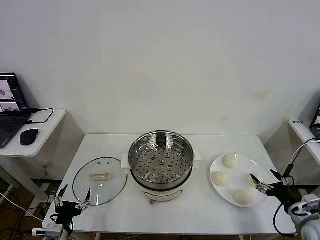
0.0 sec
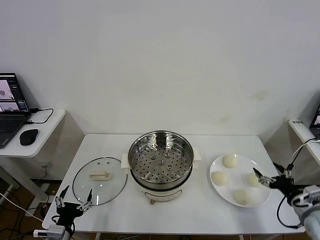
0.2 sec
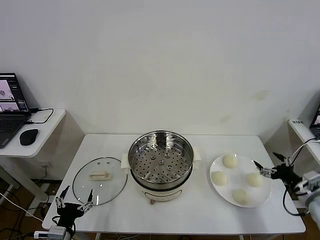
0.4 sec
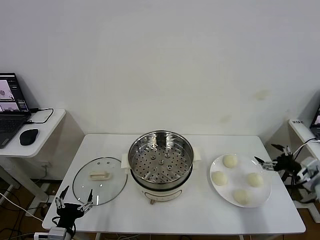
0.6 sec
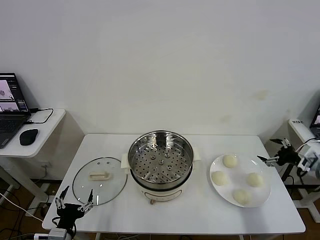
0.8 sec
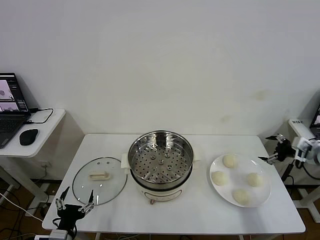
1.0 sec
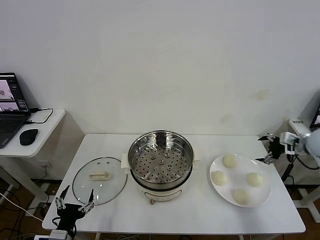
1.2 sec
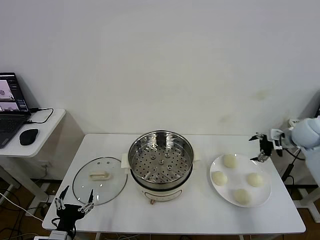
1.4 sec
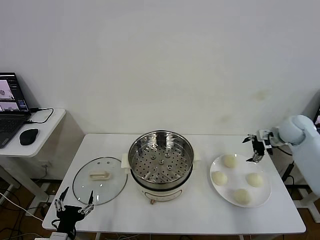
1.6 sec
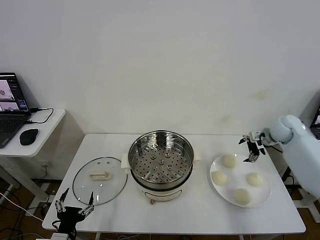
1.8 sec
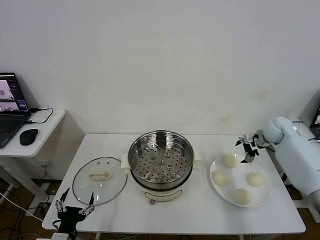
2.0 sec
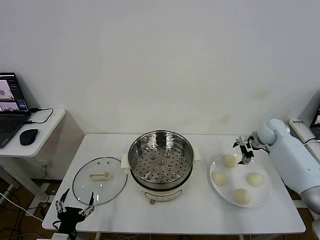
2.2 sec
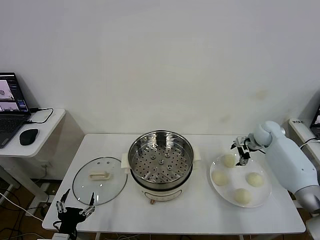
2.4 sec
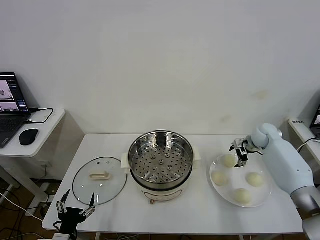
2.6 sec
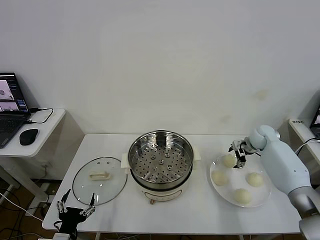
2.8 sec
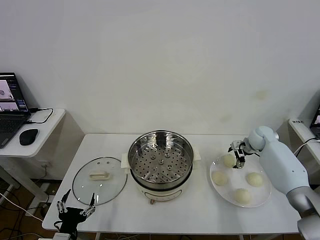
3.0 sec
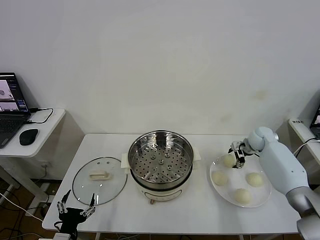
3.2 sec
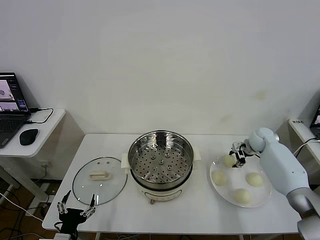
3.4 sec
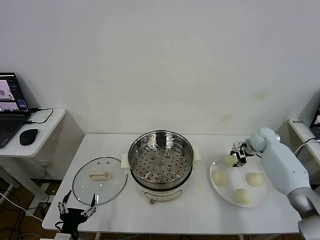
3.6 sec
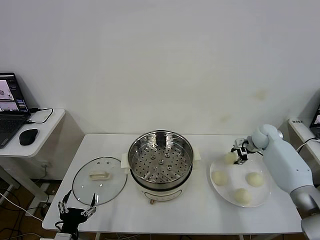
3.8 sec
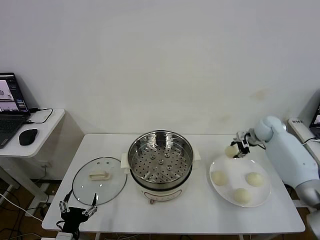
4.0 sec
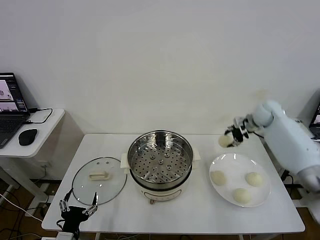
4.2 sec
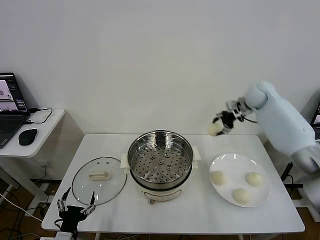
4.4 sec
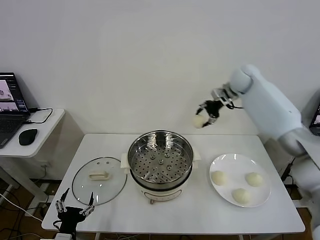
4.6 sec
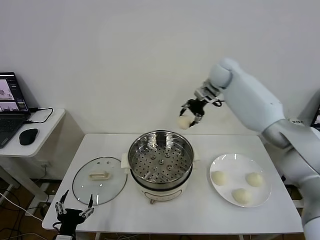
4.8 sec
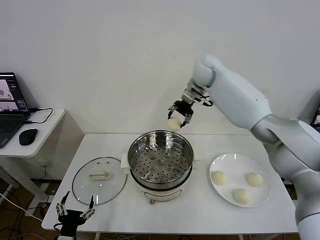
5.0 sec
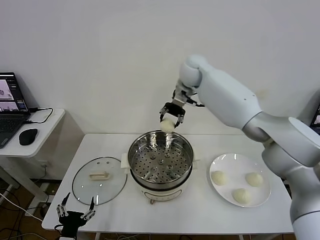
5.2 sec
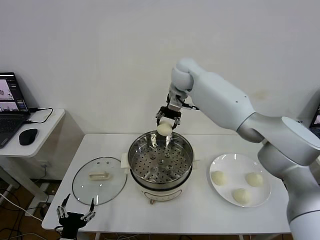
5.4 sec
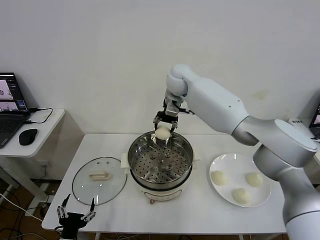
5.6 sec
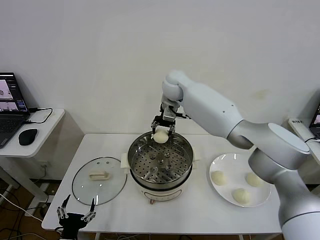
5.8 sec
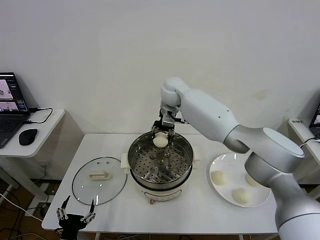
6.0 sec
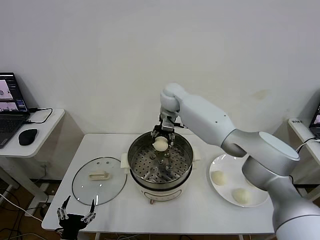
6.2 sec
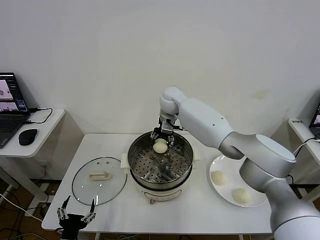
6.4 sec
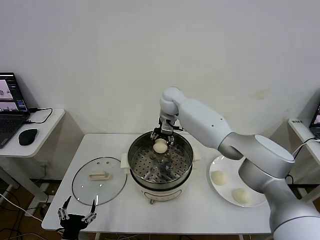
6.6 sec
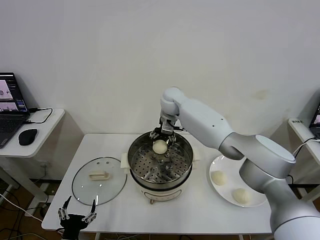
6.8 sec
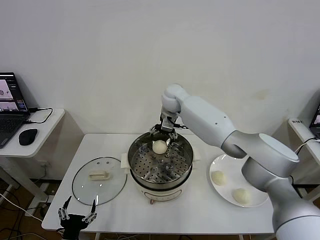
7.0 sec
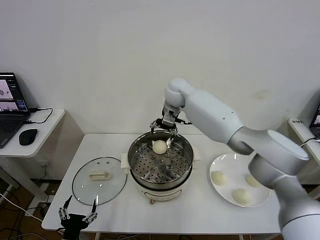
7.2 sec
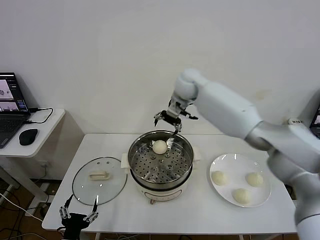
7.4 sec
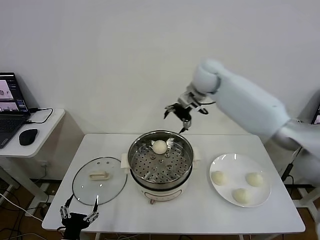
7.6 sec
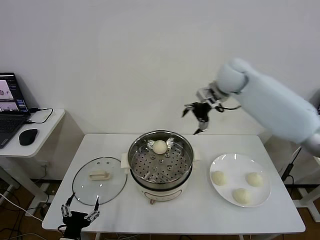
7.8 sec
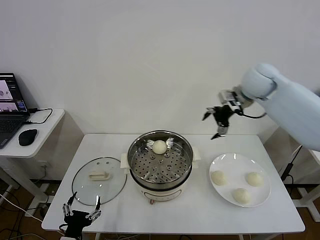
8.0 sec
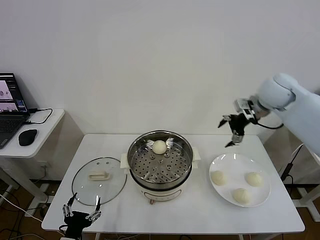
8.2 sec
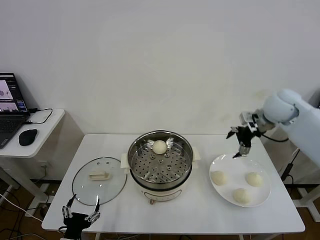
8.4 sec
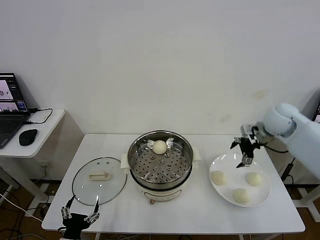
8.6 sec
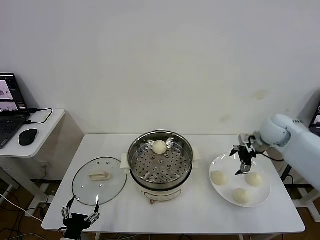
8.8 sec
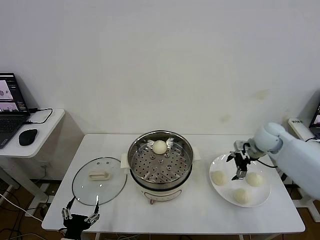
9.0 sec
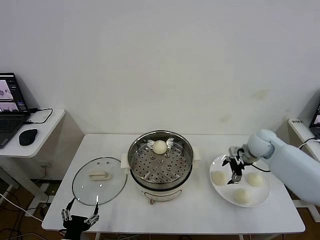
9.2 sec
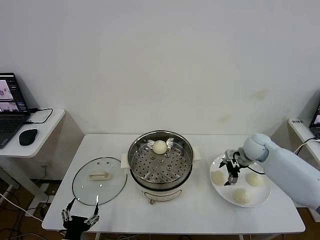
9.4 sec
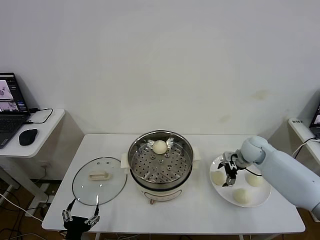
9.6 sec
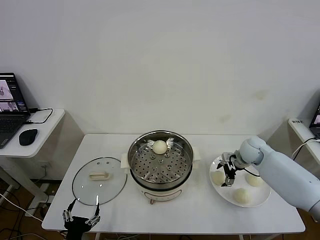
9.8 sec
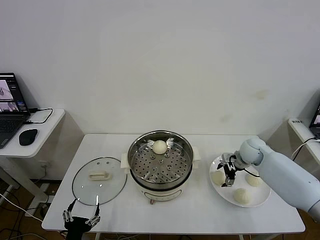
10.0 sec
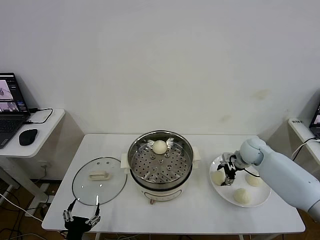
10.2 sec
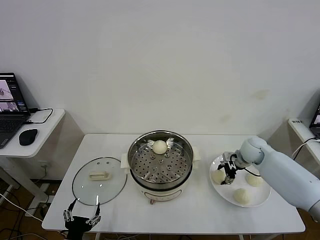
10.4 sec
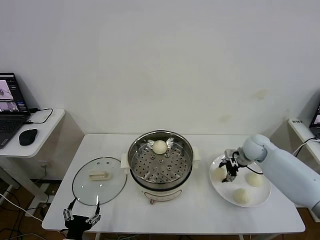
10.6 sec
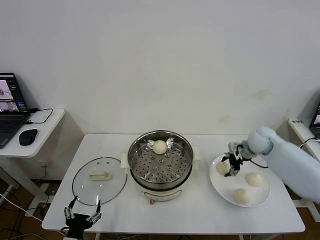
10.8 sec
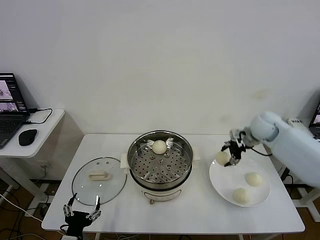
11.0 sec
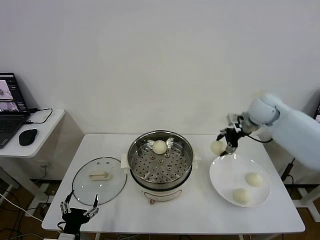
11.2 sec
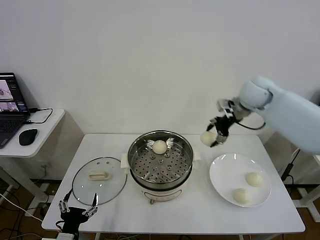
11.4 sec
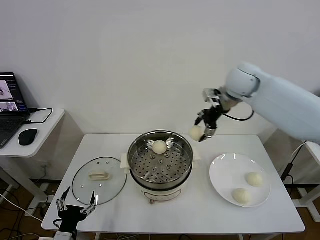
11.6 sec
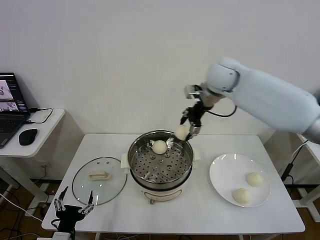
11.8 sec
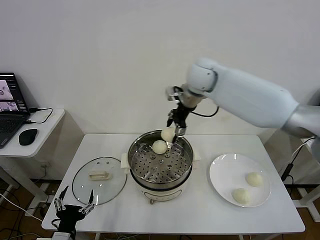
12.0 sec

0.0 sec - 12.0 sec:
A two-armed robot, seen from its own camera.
Step, 0.0 sec - 3.4 sec: Grasp the baozi in the plate with right gripper.
Step, 3.6 sec - 6.8 sec: Place the baozi on the steamer with right gripper.
Step, 7.0 sec - 10.2 sec: Grasp the baozi in the plate with right gripper.
1.6 sec - 3.0 sec: The right gripper moves downward, approximately 10 cm.
3.0 sec - 4.4 sec: The right gripper heads upward and to the left, covering roughly 25 cm, and closes up.
4.4 sec - 6.0 sec: The right gripper shifts about 25 cm to the left.
6.0 sec - 7.6 sec: The right gripper goes roughly 20 cm to the right and upward, and opens its fingers.
7.6 sec - 9.0 sec: The right gripper moves downward, to the right and backward, roughly 30 cm.
9.0 sec - 10.4 sec: The right gripper shifts about 5 cm downward, and closes.
10.4 sec - 12.0 sec: The right gripper goes some 35 cm to the left and upward.

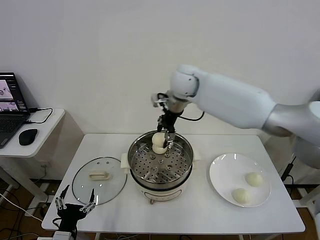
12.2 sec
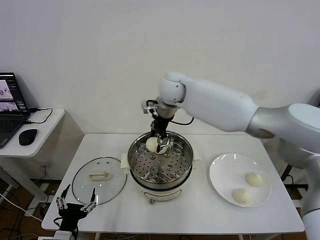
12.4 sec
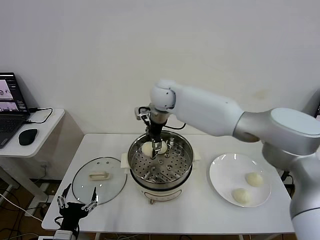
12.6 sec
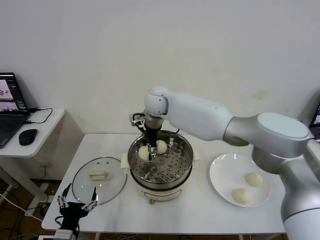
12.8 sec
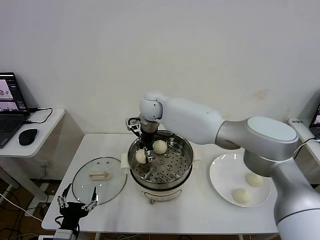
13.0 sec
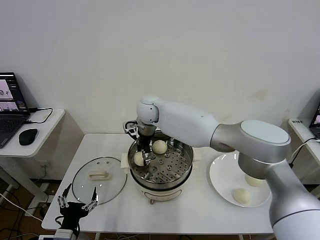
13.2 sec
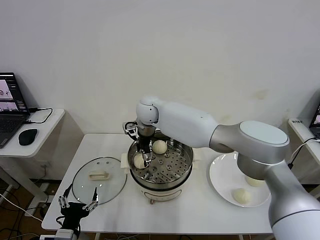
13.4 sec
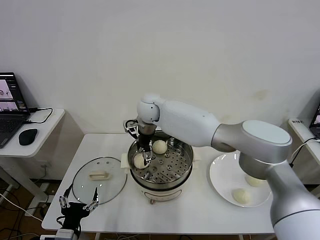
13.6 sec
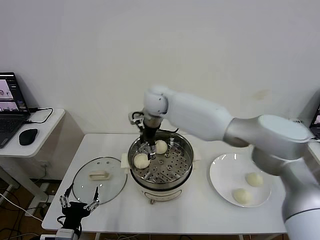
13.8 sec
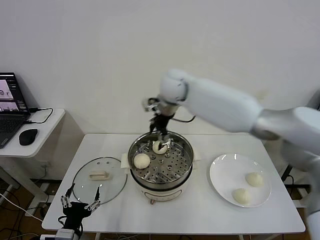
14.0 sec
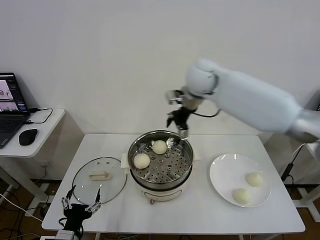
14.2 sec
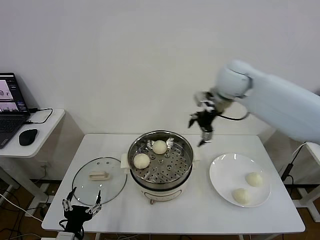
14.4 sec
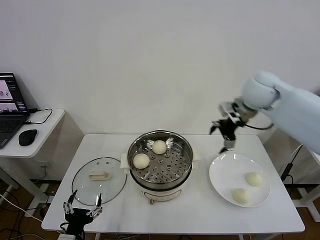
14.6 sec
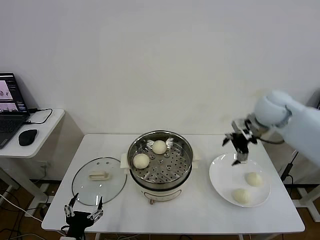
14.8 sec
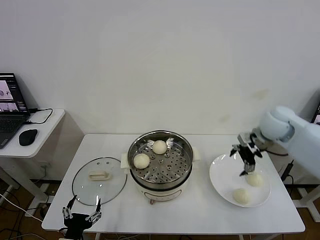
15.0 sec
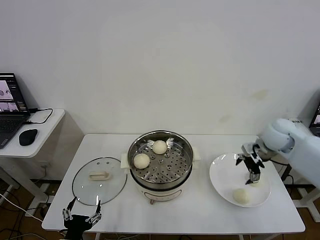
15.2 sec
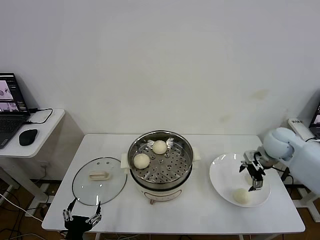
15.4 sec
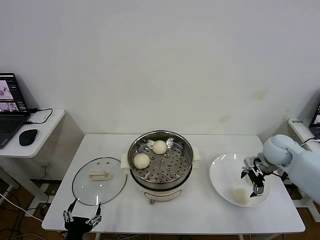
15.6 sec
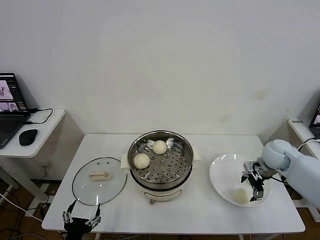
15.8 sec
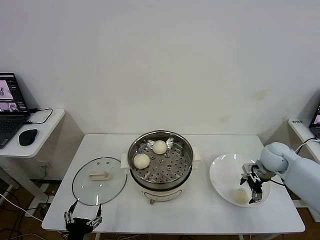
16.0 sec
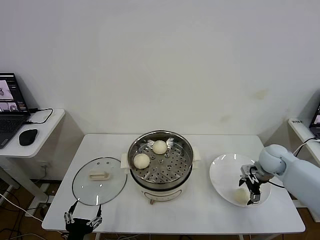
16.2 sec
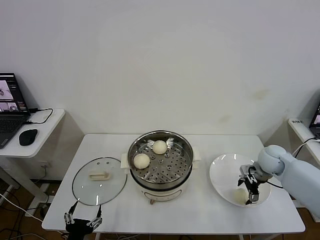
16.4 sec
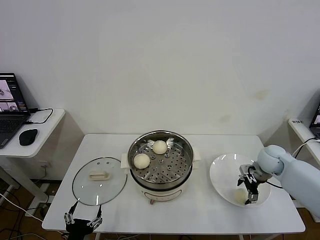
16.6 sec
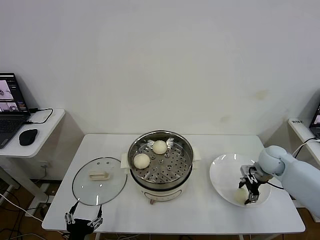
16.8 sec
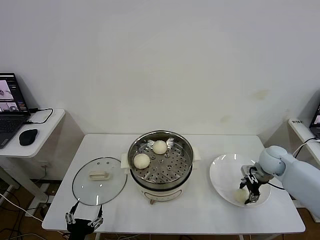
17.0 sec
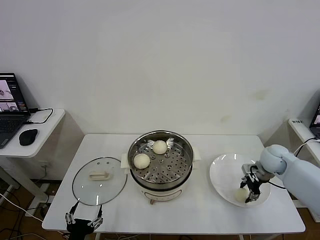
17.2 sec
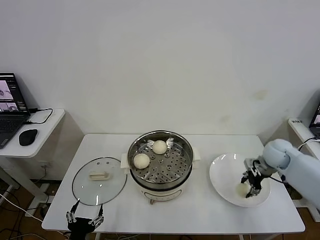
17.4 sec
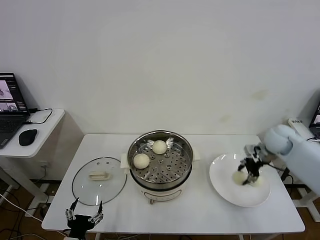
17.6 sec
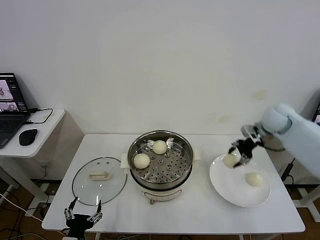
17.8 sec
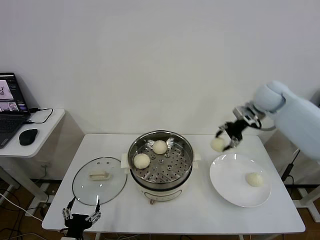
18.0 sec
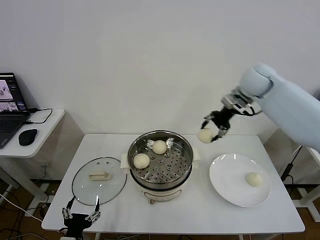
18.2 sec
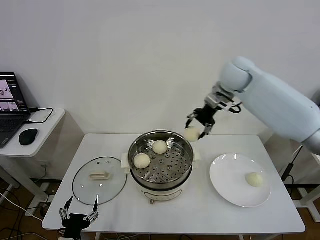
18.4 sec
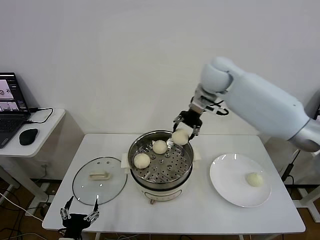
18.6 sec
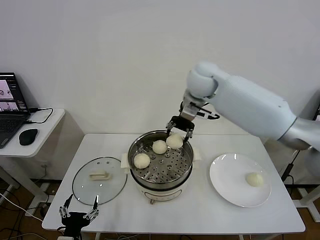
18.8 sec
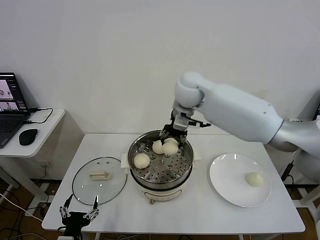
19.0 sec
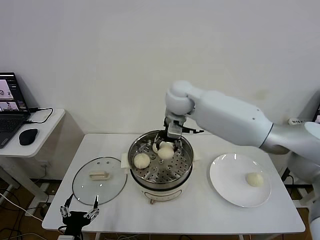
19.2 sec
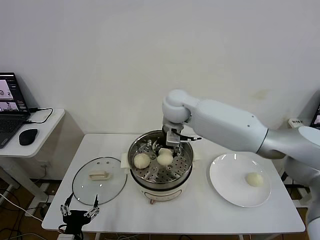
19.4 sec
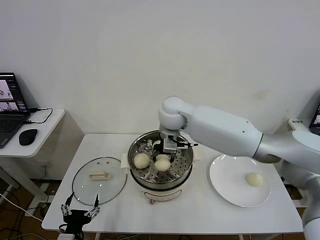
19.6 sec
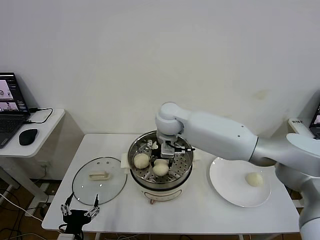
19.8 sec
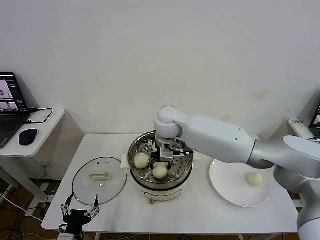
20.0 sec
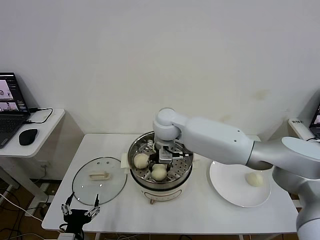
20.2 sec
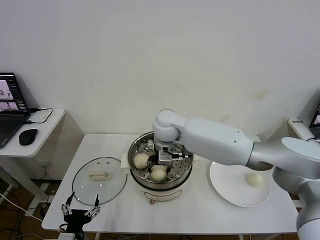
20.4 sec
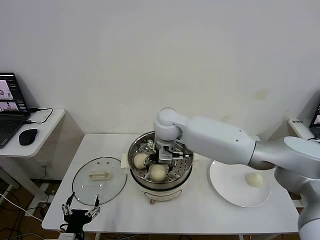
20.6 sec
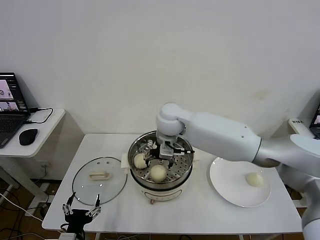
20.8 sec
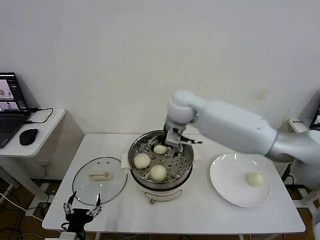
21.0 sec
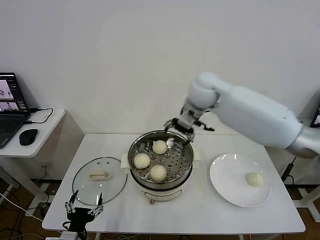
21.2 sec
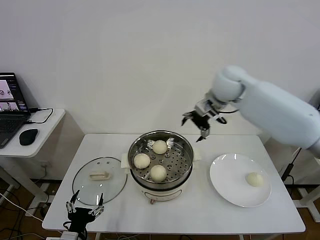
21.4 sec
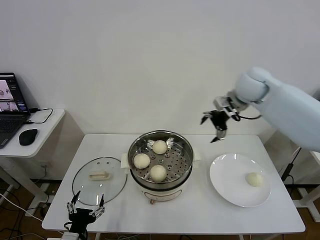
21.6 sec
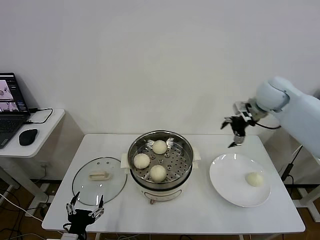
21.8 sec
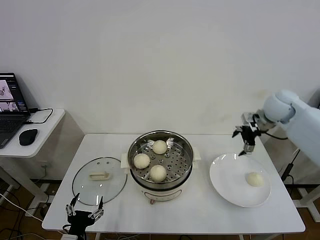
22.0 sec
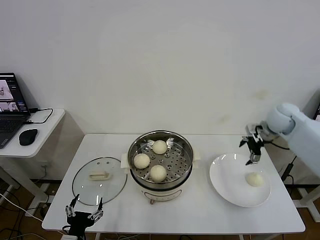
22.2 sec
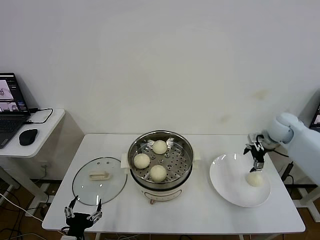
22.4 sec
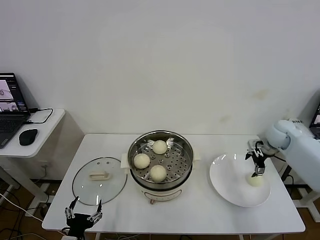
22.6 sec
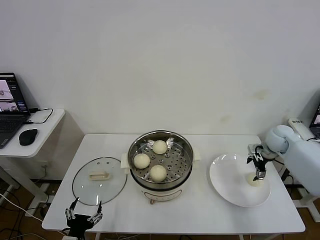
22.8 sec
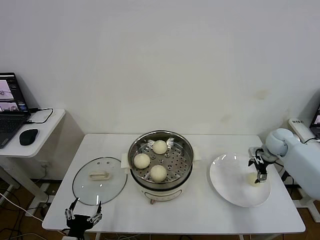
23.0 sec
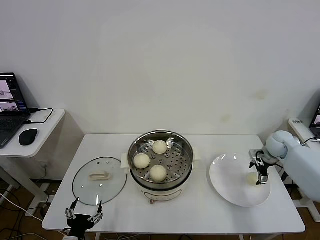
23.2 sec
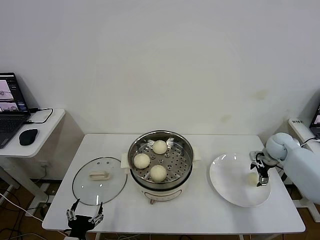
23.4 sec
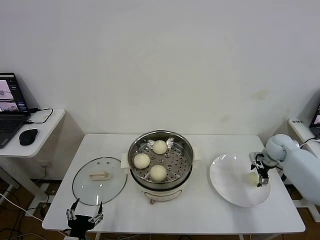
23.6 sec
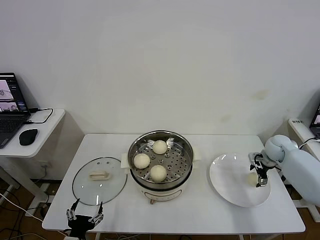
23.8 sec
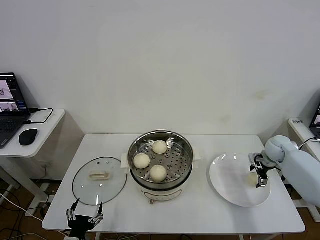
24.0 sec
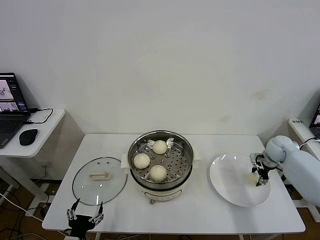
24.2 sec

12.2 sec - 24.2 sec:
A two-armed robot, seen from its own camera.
Step, 13.6 sec - 16.8 sec: Grasp the baozi in the plate with right gripper.
Step, 17.0 sec - 20.6 sec: Place the baozi on the steamer with right gripper.
12.2 sec - 13.8 sec: The right gripper moves approximately 10 cm downward and comes back, and opens up.
13.8 sec - 15.2 sec: The right gripper shifts roughly 35 cm to the right.
15.2 sec - 16.6 sec: The right gripper heads downward, covering some 10 cm.
16.6 sec - 18.2 sec: The right gripper travels upward, to the left and forward by roughly 30 cm, and closes.
18.2 sec - 19.8 sec: The right gripper moves to the left and downward, approximately 25 cm.
19.8 sec - 21.2 sec: The right gripper travels to the right and upward by about 15 cm, and opens up.
21.2 sec - 22.6 sec: The right gripper travels to the right and downward by about 35 cm.
22.6 sec - 24.2 sec: The right gripper moves downward, about 5 cm, and closes its fingers.
